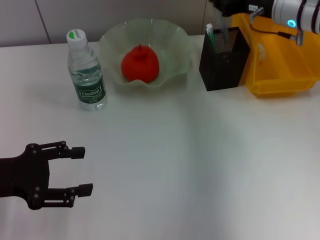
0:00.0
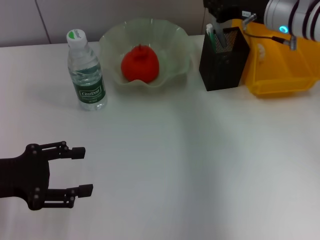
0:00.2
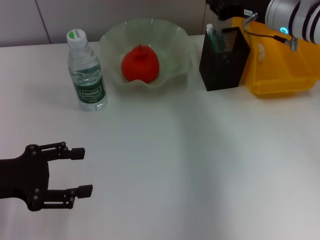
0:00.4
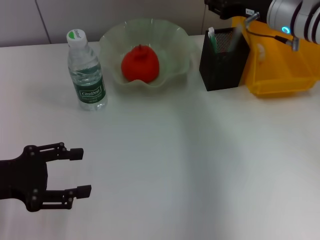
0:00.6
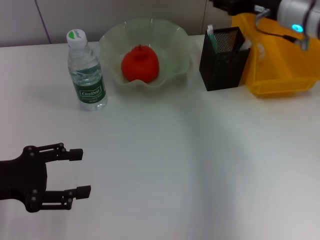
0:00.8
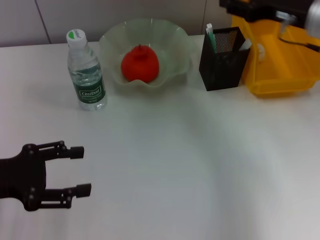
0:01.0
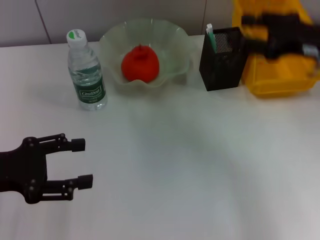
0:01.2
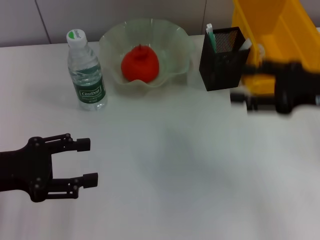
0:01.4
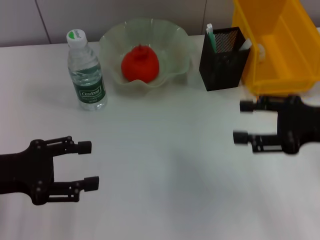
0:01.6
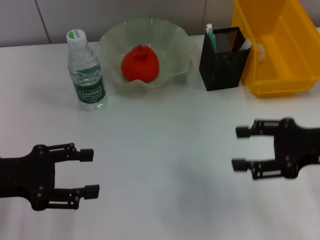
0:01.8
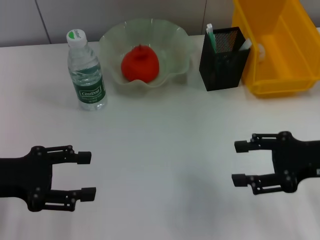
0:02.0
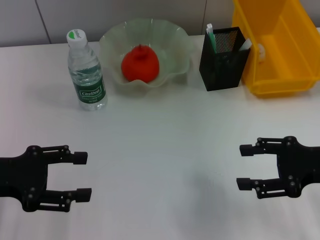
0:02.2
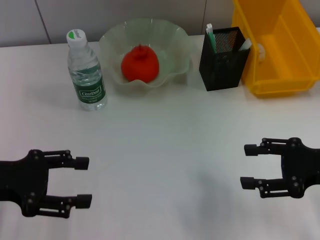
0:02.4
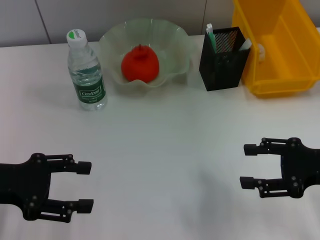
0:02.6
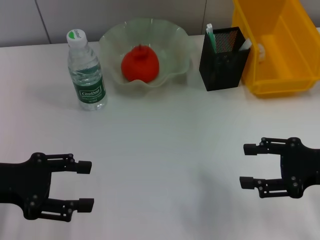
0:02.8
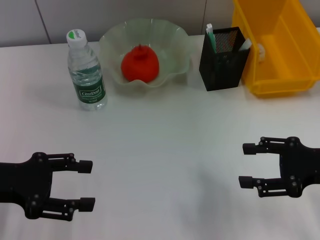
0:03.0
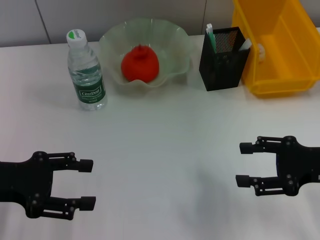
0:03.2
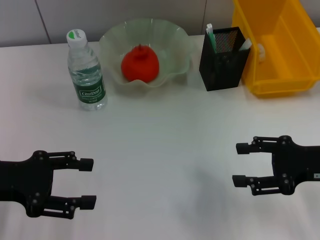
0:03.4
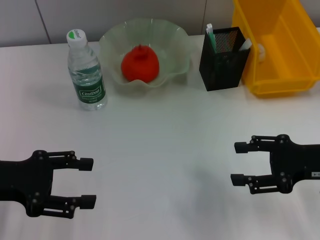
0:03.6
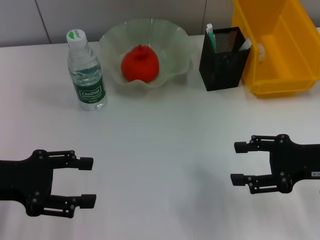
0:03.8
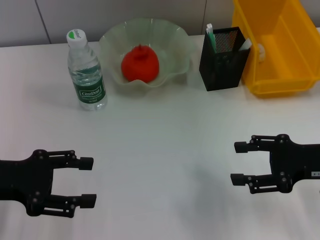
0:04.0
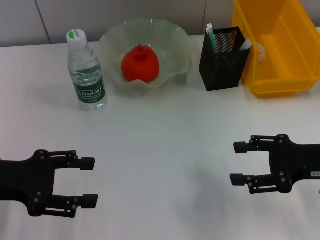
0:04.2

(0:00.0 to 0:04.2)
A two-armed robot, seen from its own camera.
0:00.0 - 0:01.4: The right gripper shifts some 15 cm backward, and opens its fingers.
0:01.4 - 0:02.8: The right gripper is displaced downward and backward by about 10 cm.
0:02.8 - 0:04.2: The grippers move only a little.

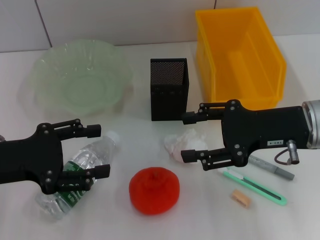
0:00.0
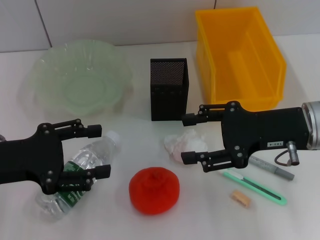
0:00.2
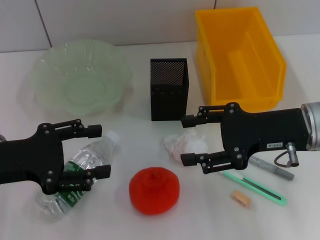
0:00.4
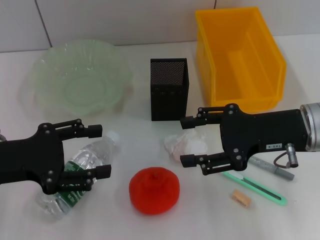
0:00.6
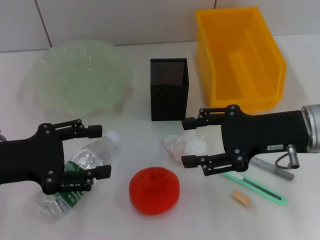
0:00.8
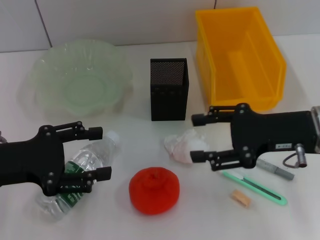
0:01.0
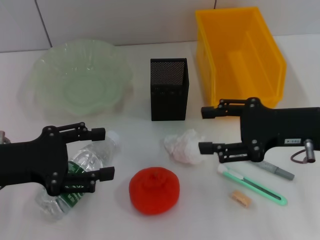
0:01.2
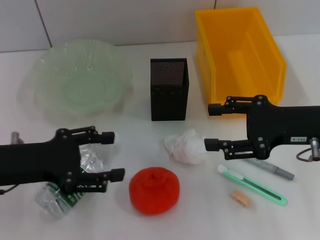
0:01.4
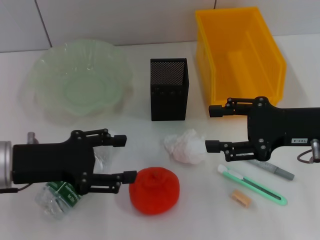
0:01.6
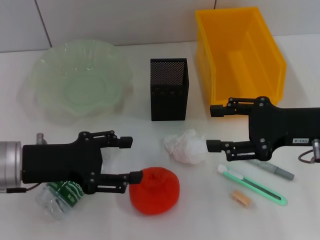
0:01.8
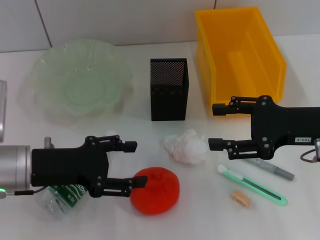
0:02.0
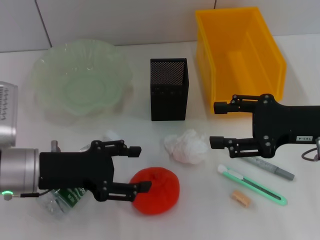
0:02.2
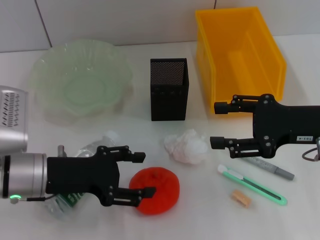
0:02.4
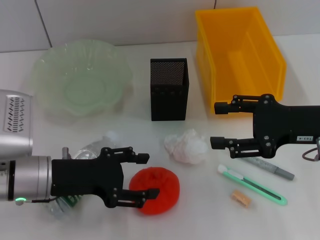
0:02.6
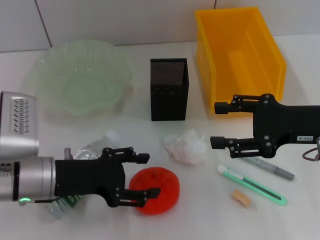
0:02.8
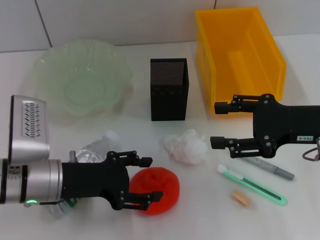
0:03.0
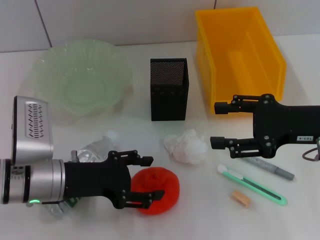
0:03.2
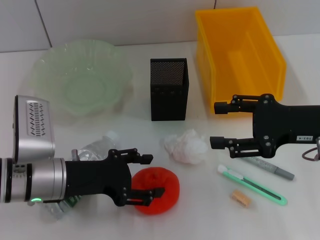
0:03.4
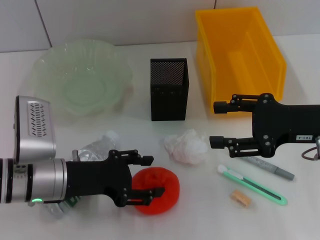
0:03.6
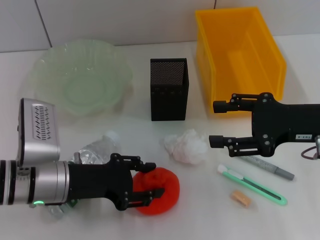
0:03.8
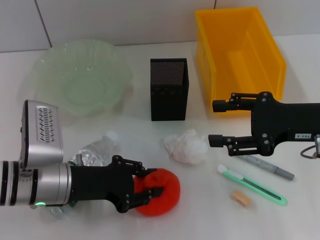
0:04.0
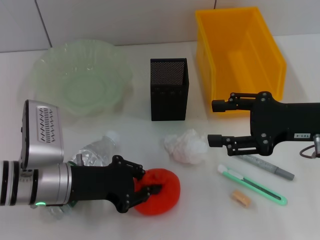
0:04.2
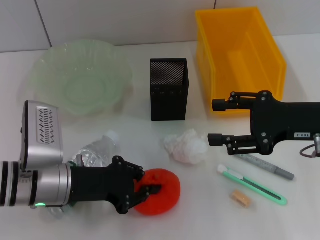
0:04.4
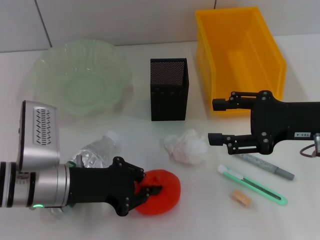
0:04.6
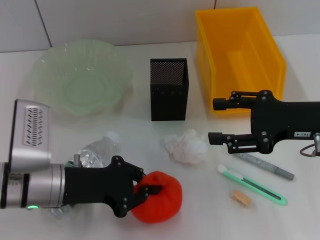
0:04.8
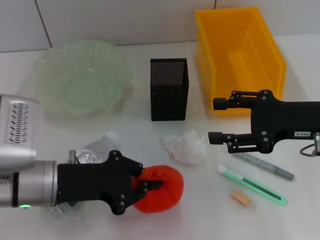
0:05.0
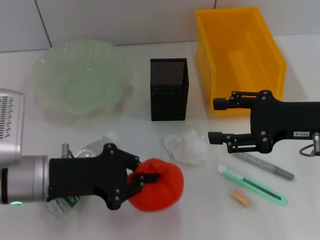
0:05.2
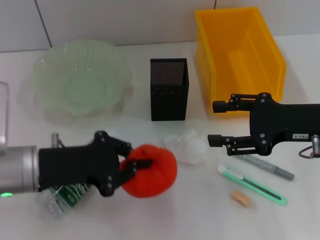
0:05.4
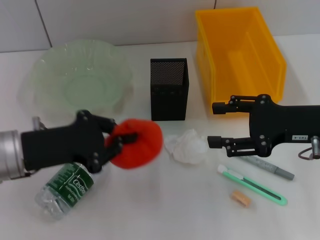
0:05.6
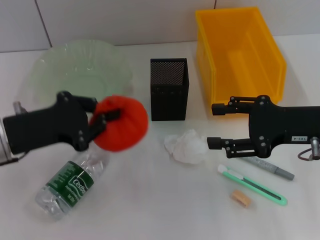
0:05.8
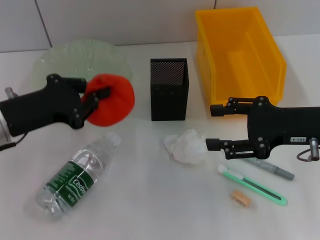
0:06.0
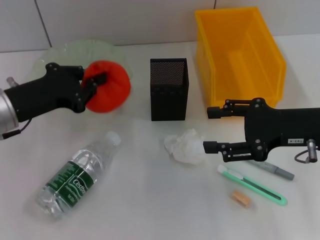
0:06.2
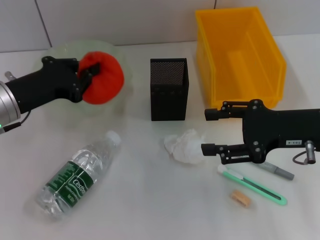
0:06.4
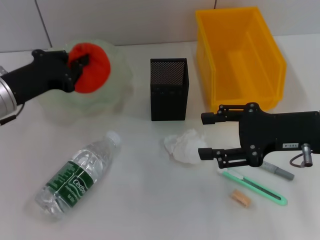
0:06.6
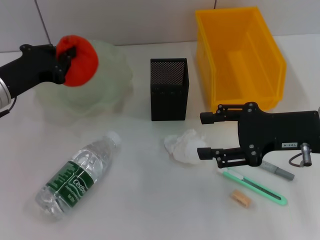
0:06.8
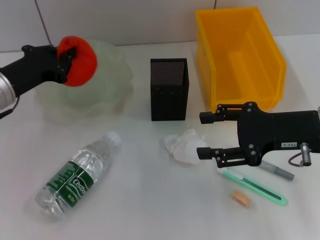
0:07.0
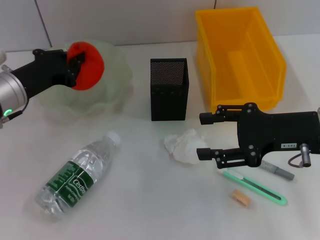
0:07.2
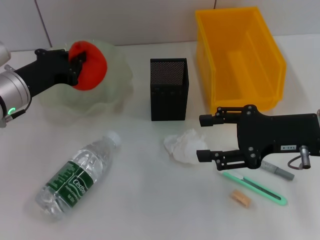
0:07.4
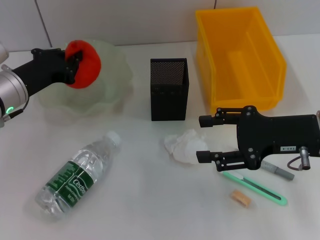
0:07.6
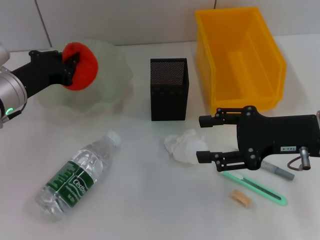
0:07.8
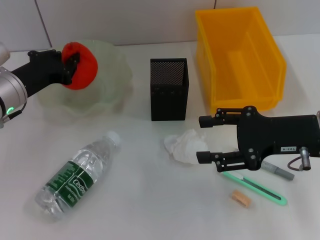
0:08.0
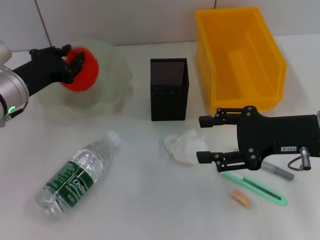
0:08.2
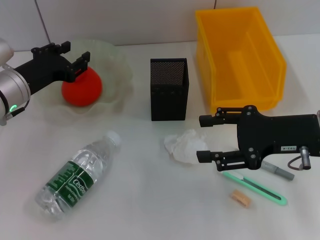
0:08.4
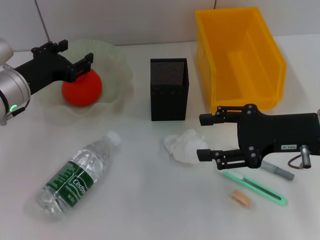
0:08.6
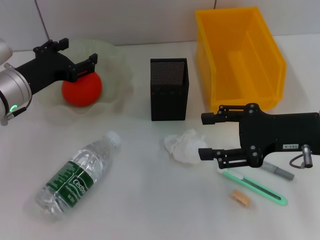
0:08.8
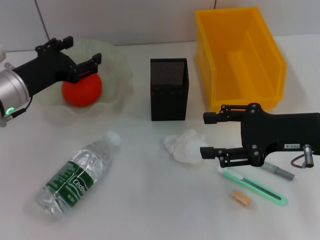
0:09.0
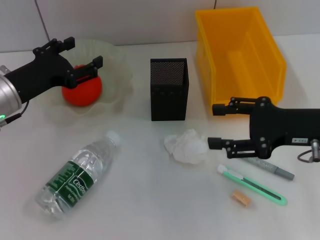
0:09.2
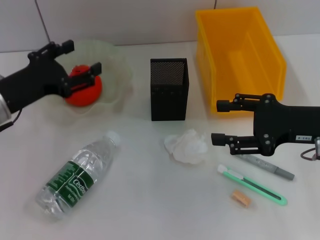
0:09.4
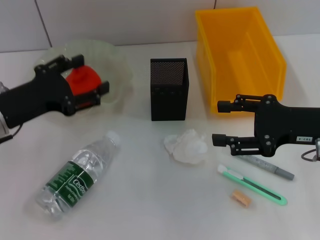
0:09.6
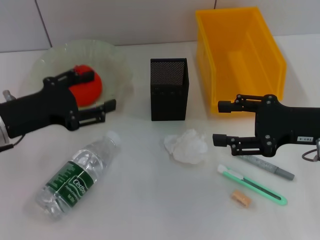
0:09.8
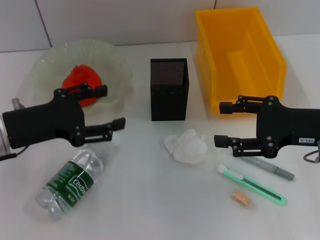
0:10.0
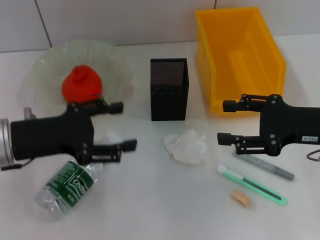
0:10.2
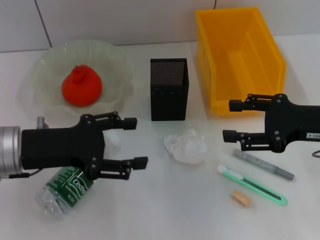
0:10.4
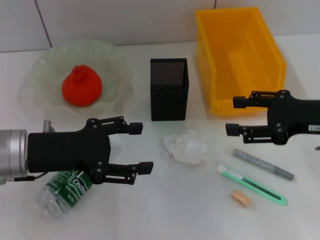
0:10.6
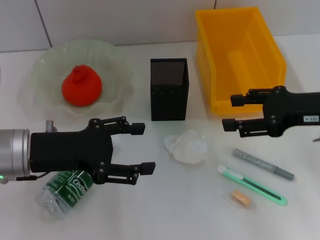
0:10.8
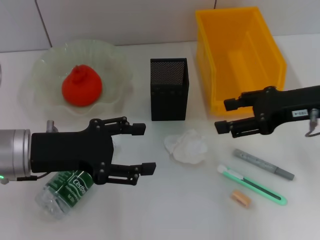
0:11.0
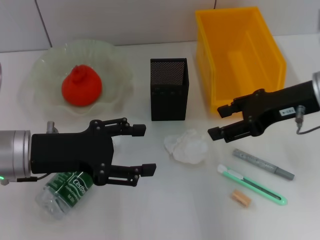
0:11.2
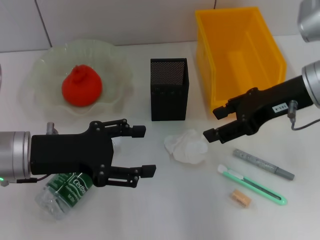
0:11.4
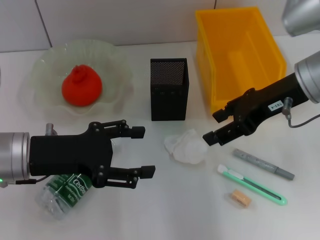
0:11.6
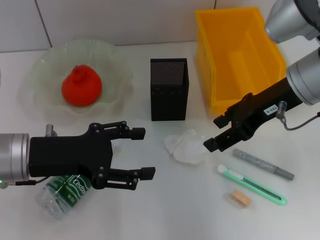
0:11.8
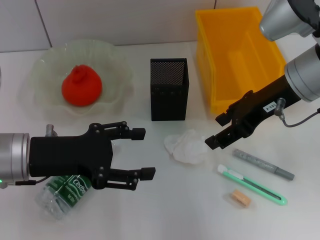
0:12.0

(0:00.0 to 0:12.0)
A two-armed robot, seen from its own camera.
Step, 0:00.0 - 0:04.2: Grab the orange with the left hand.
Step, 0:04.4 - 0:08.6: Place the orange into the fruit bowl with the left hand.
0:00.0 - 0:01.6: The grippers stay close to where they were, moving slightly.
0:01.6 - 0:03.0: The left gripper travels downward by approximately 5 cm.
0:03.0 - 0:04.4: The left gripper closes up.
0:04.4 - 0:06.0: The left gripper shifts about 10 cm upward and to the left.
0:06.0 - 0:07.6: The left gripper heads forward, covering approximately 5 cm.
0:07.6 - 0:09.0: The left gripper opens up.
0:09.0 - 0:10.4: The left gripper travels backward by some 10 cm.
0:10.4 - 0:12.0: The right gripper is displaced to the left, forward and upward by roughly 10 cm.

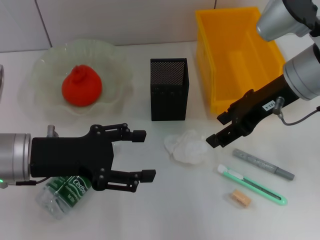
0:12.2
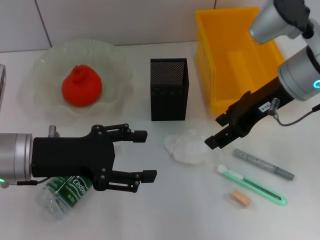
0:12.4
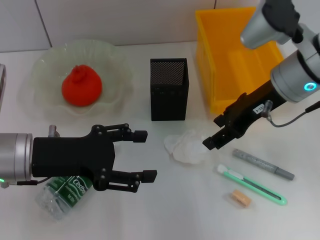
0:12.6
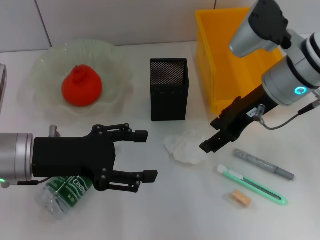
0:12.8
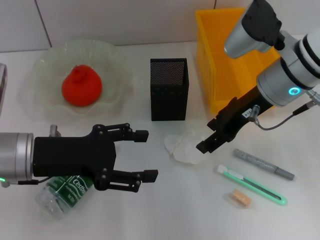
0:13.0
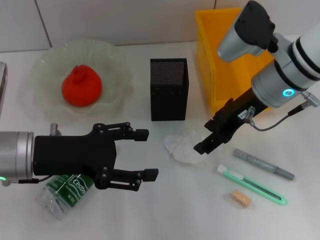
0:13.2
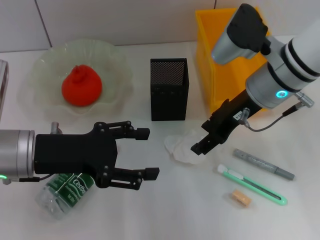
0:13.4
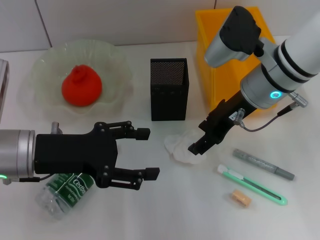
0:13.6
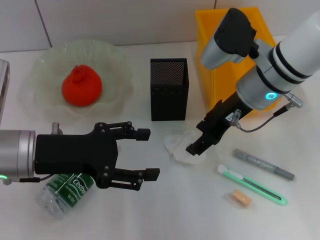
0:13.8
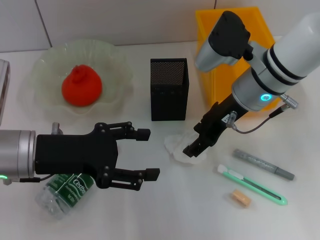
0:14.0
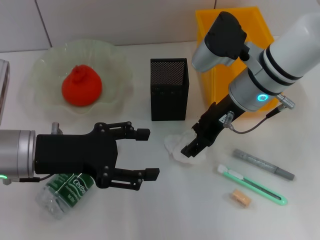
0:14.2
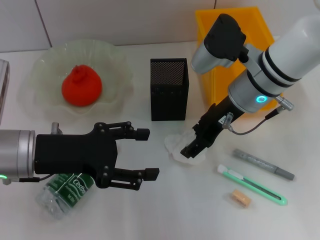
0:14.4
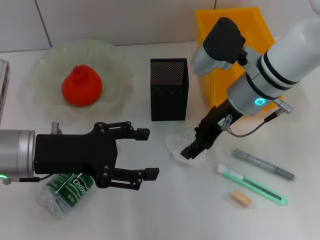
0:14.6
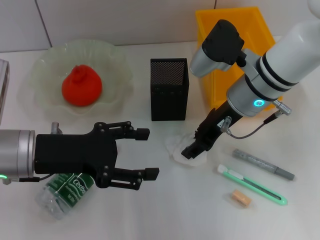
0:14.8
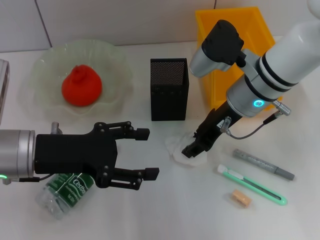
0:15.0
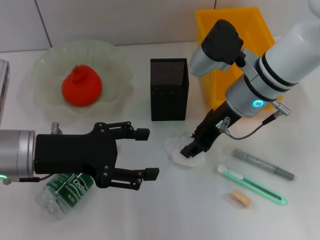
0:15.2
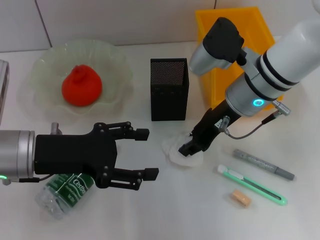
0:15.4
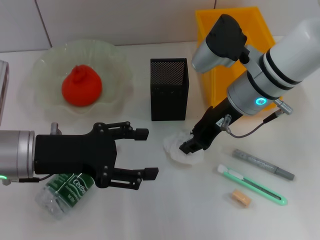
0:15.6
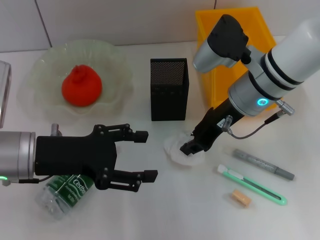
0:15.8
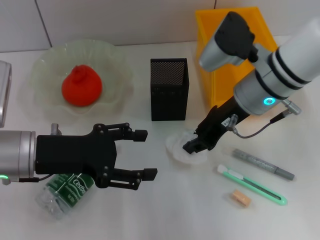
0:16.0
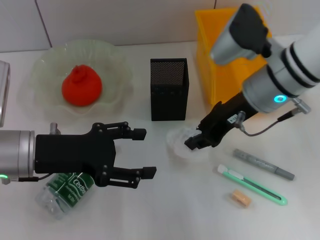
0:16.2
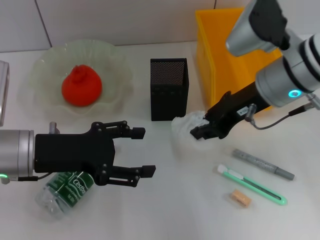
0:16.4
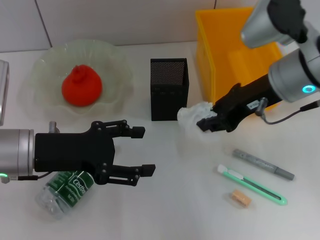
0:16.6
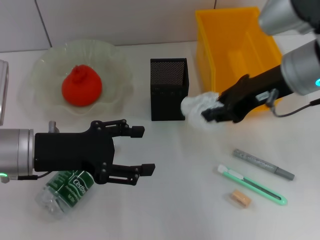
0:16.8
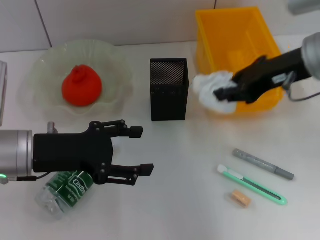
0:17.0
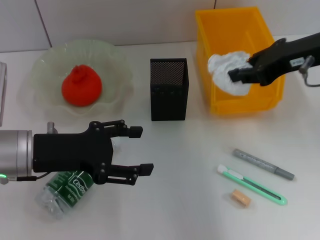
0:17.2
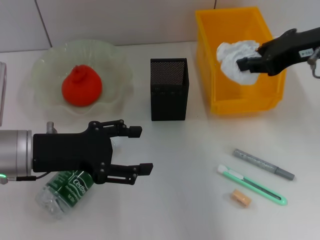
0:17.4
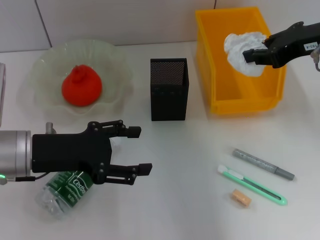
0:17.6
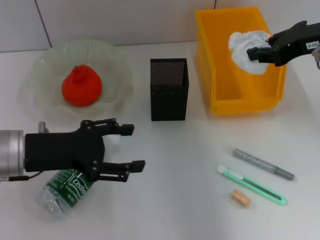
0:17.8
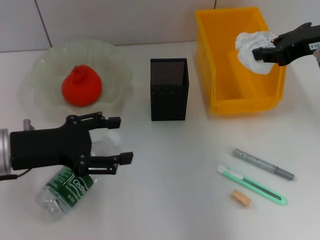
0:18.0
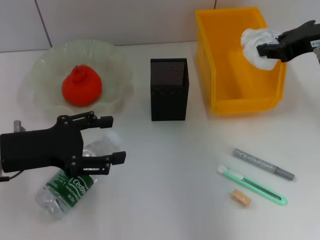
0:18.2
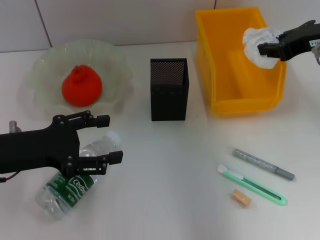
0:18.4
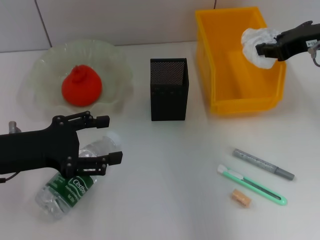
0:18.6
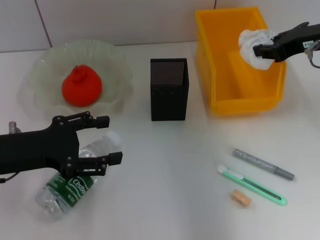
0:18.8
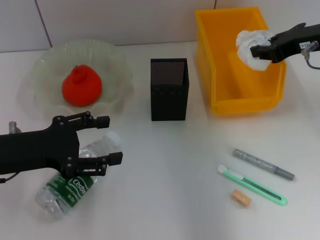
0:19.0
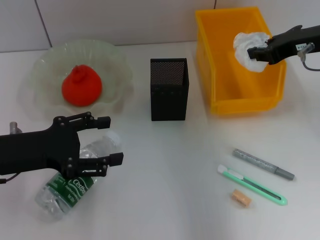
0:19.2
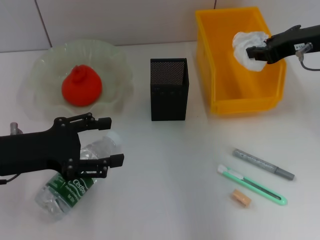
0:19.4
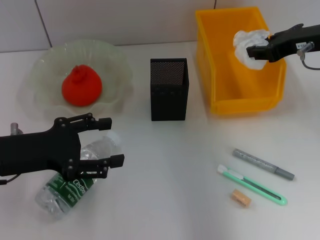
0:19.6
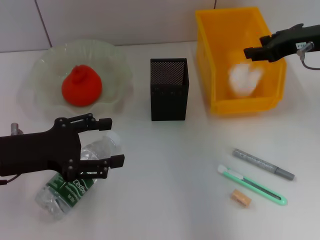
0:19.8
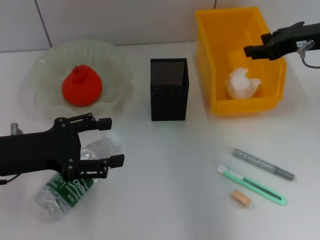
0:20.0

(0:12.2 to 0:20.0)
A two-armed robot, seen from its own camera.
Step, 0:12.2 - 0:15.2: Grab the paper ball with the right hand.
0:12.2 - 0:13.8: The right gripper ends up approximately 5 cm from where it was.
0:13.8 - 0:15.4: The right gripper closes.
0:15.4 - 0:16.8: The right gripper goes some 10 cm upward and to the right.
0:16.8 - 0:18.4: The right gripper goes approximately 10 cm to the right.
0:18.4 - 0:20.0: The grippers move only a little.
